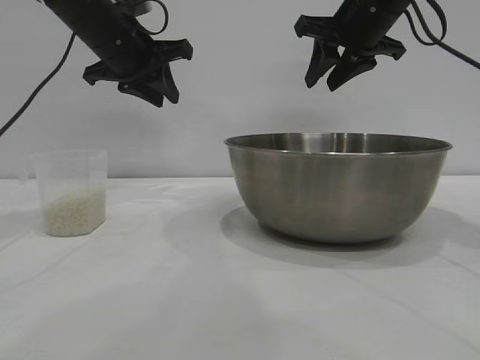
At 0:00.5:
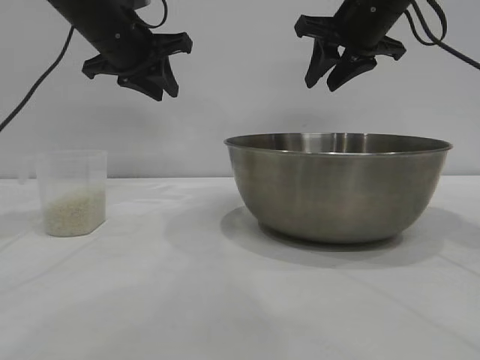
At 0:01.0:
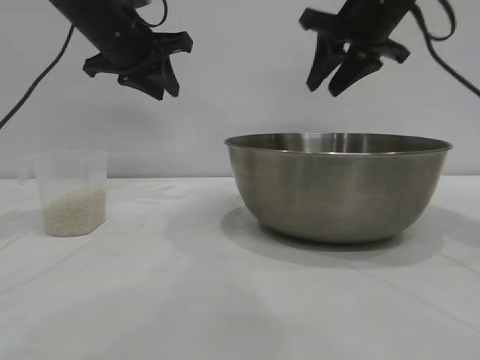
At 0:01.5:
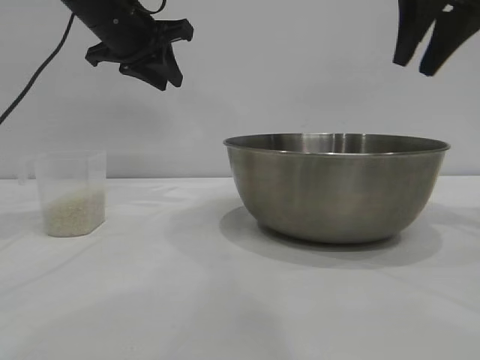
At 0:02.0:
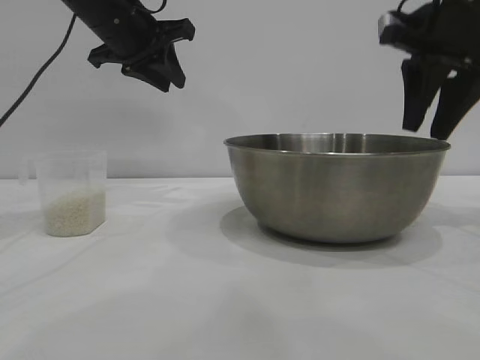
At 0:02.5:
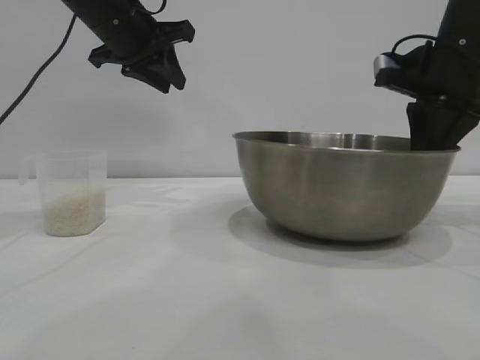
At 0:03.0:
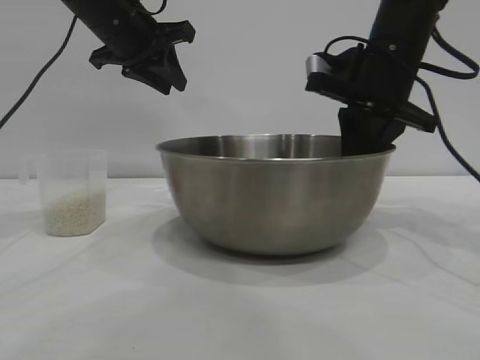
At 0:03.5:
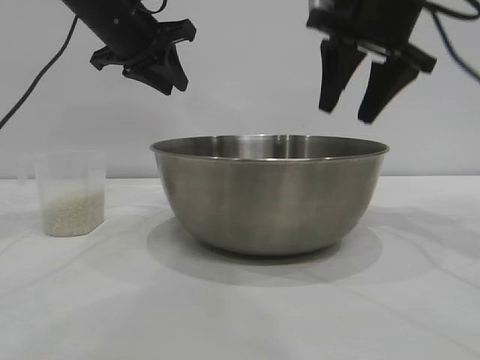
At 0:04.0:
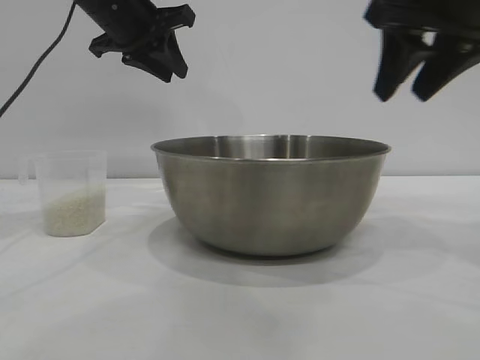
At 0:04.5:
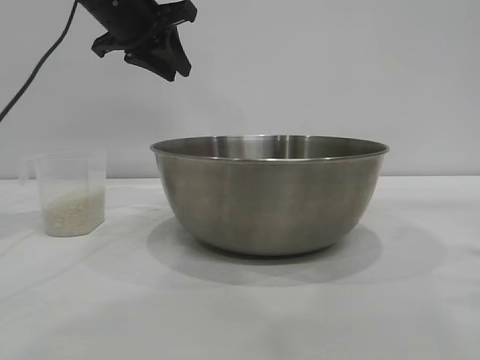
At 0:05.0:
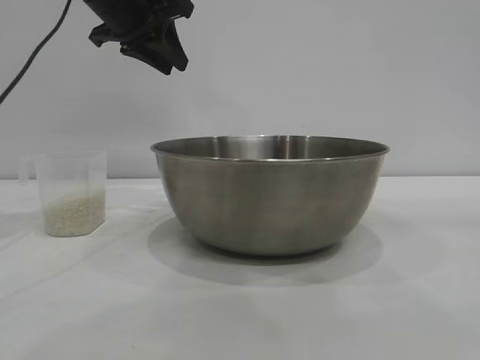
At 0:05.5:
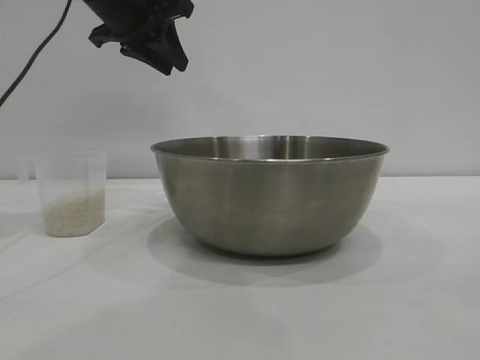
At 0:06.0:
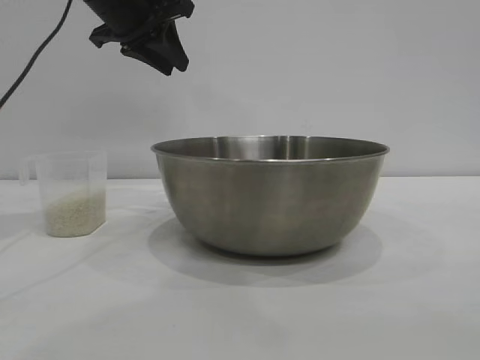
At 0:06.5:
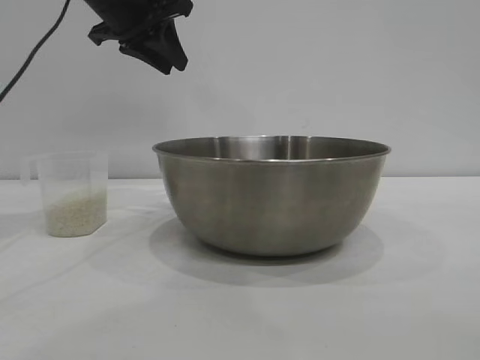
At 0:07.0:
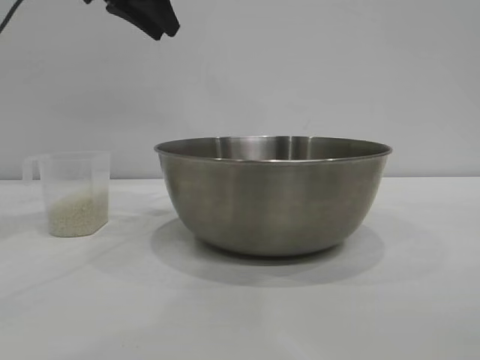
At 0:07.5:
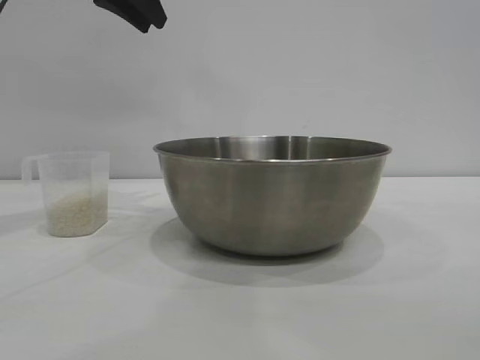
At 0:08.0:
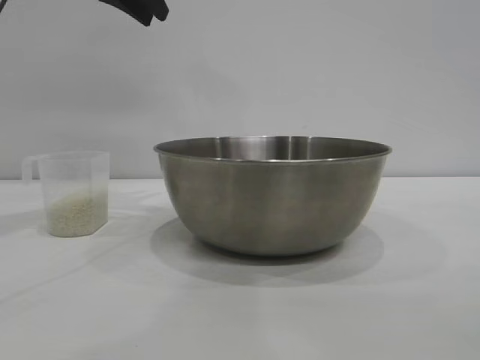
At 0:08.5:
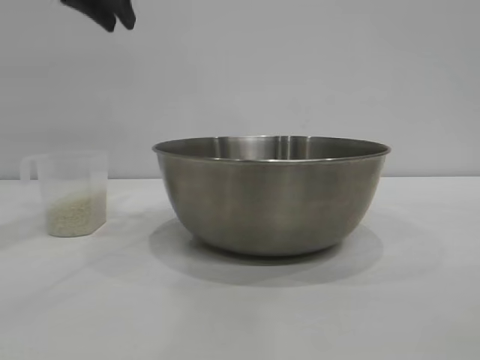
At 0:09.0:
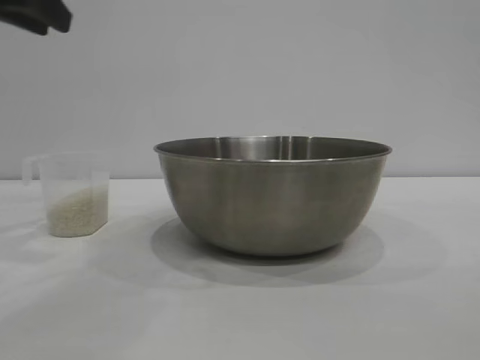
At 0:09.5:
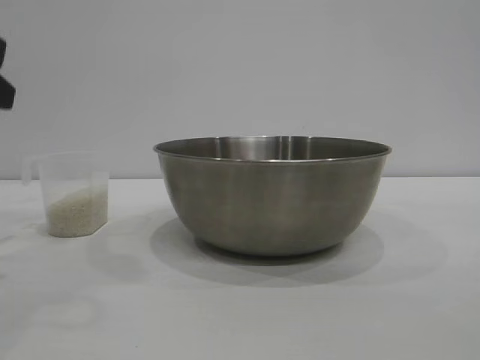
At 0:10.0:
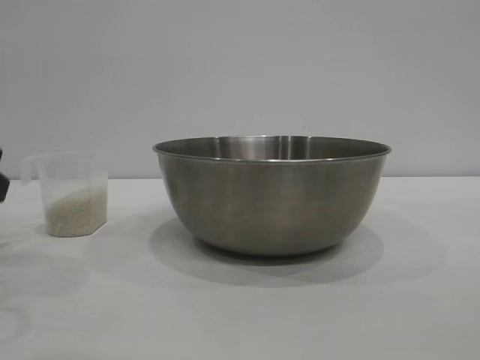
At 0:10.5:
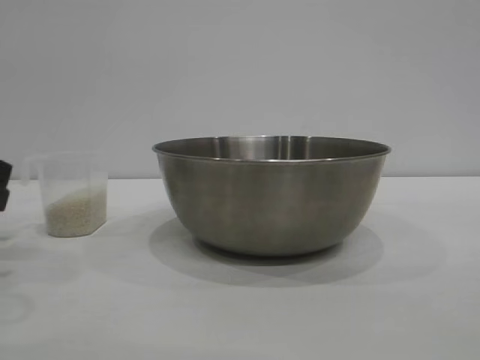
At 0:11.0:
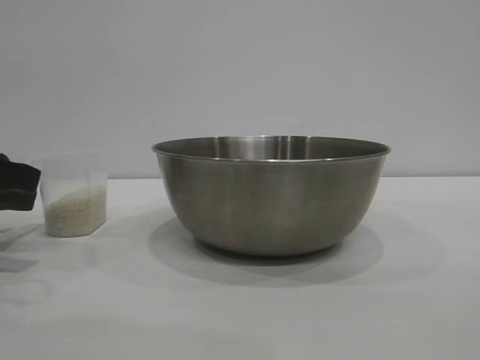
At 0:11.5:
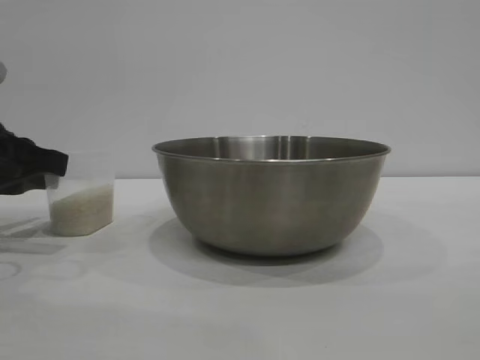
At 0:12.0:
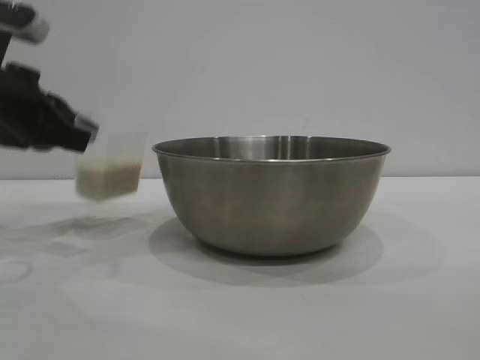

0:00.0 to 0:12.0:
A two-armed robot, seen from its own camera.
Task of the whole recording: the right gripper grasp the rice container and place it in the center of the table, the left gripper grasp the rice scoop and pour the rice into the rice container.
Step, 0:00.0 to 0:03.5: Move the bowl to the center of view with the right gripper.
Step, 0:04.0 to 0:11.5: Pick up the cup with rice in it with the left gripper.

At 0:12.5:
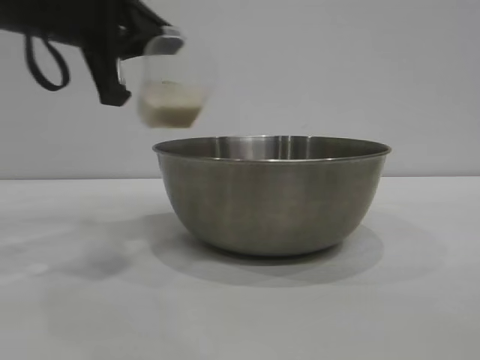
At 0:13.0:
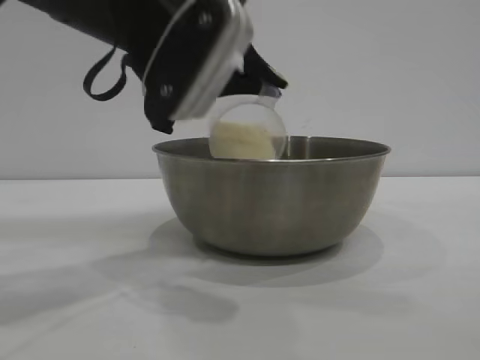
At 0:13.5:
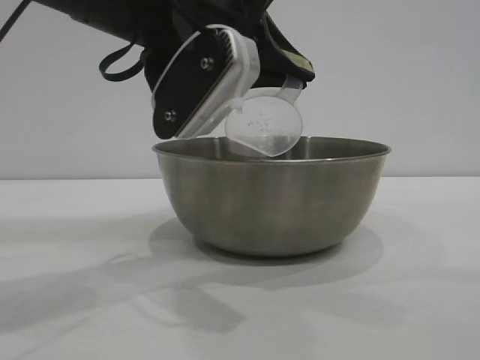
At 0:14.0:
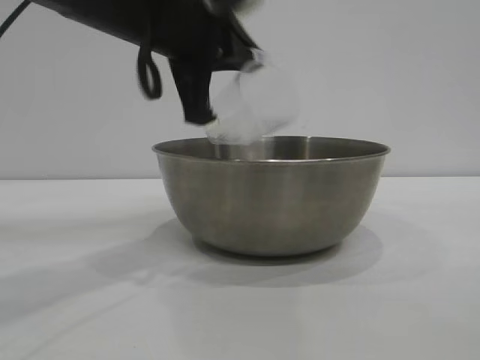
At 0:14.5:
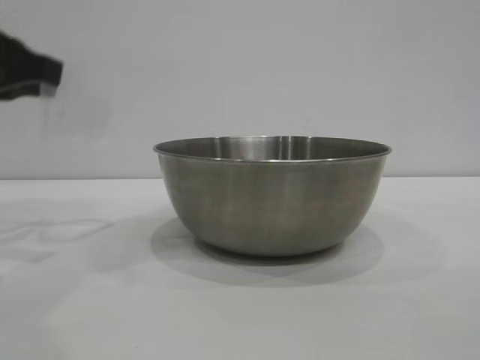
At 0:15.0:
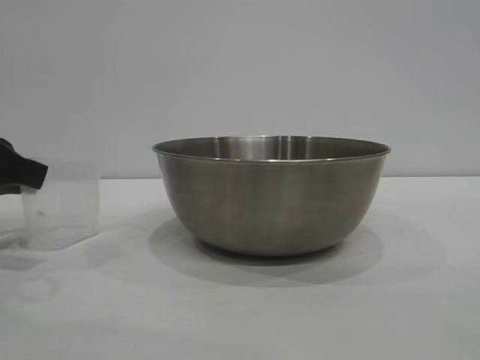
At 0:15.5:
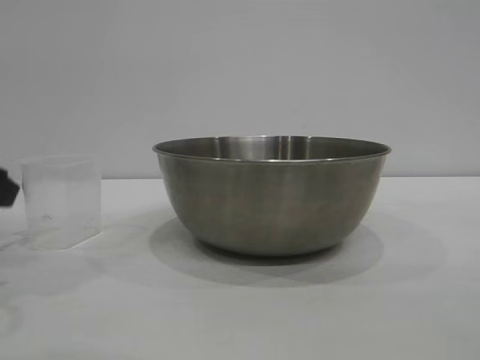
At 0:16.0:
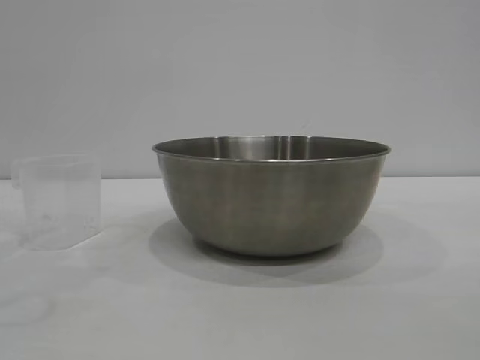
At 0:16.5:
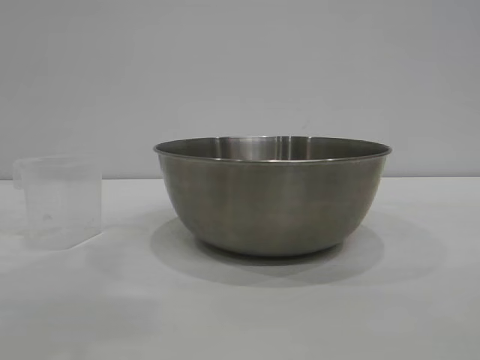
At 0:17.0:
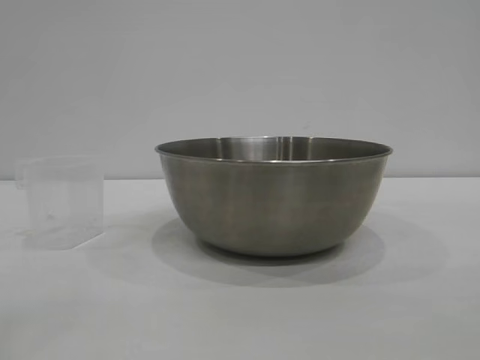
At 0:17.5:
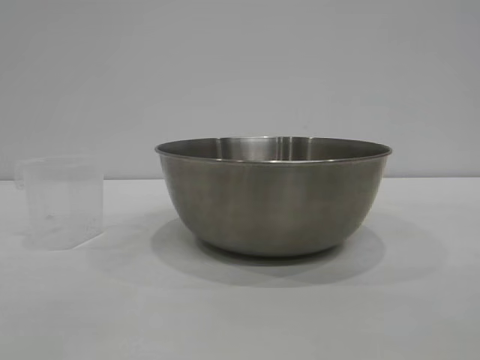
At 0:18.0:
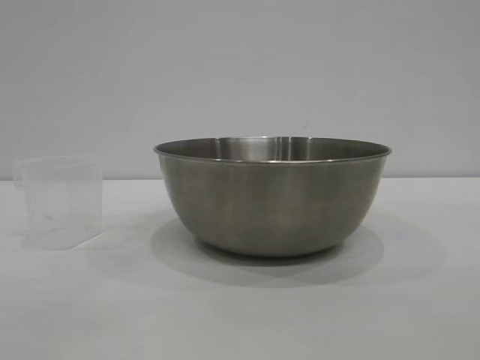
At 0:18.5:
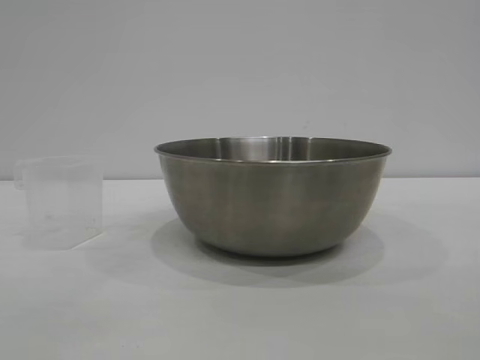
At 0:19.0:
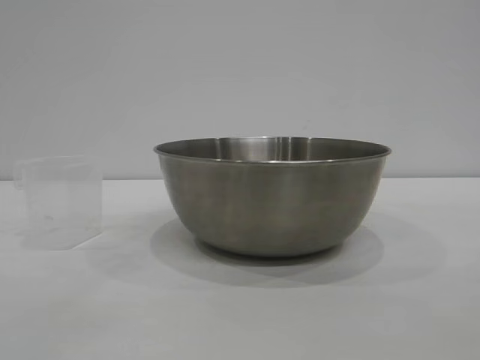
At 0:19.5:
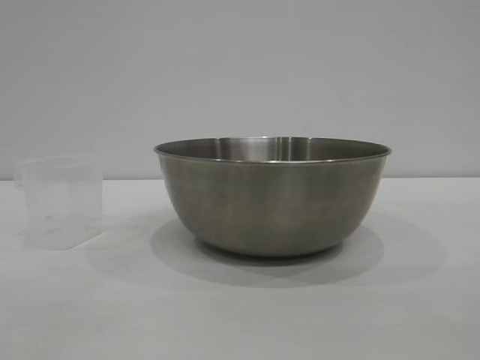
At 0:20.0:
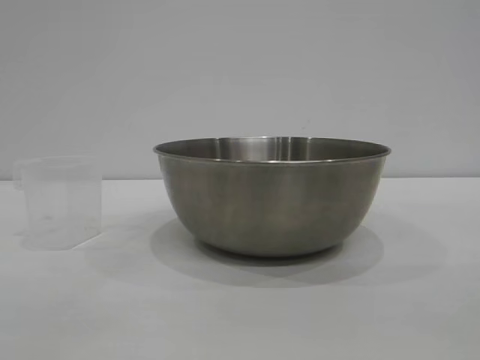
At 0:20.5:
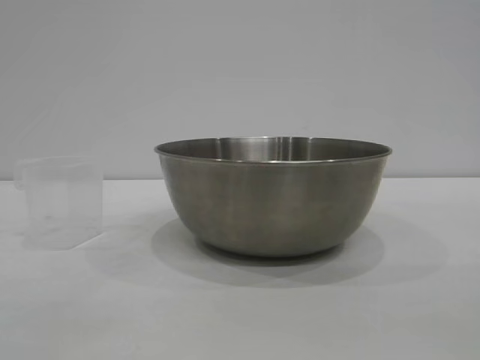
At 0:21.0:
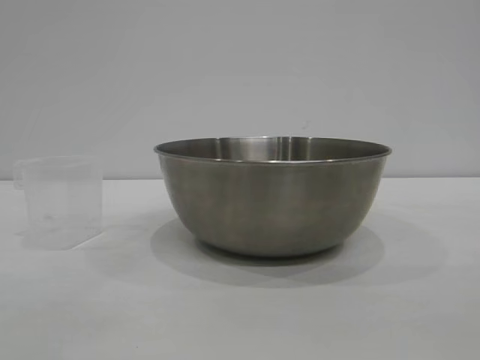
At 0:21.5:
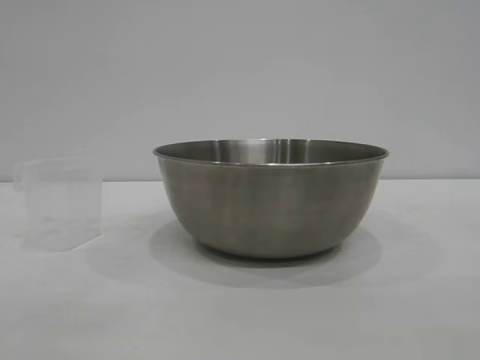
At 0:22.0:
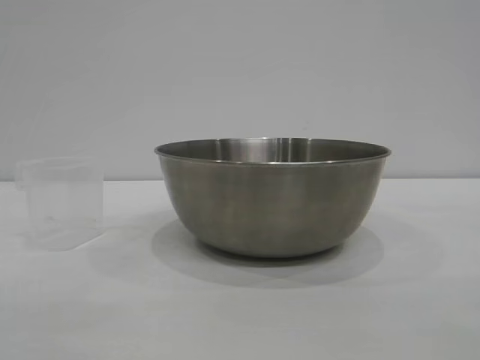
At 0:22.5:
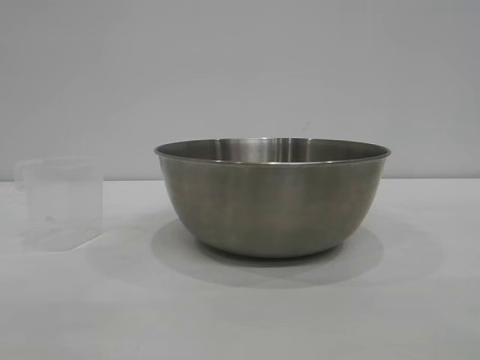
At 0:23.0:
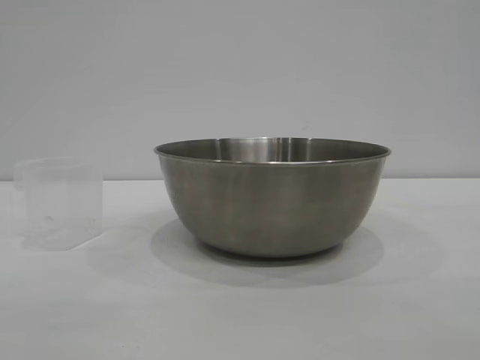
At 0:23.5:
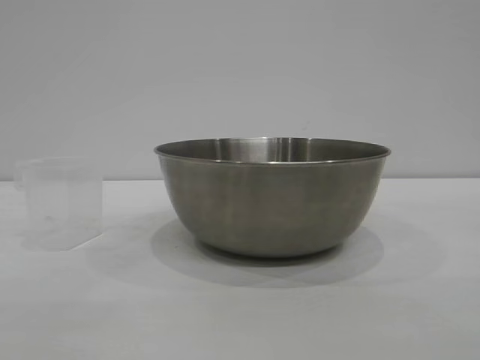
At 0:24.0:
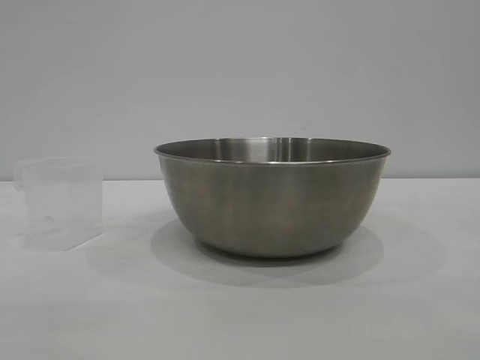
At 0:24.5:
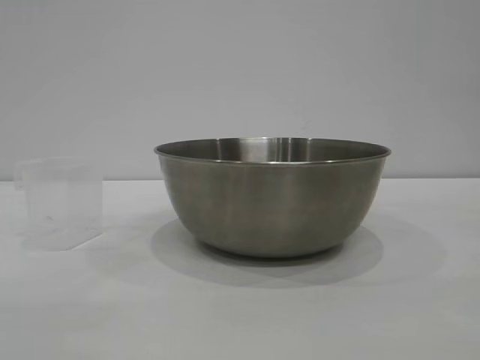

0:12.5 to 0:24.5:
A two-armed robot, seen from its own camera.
Task of the whole recording: the right gripper grasp the rice container and place it in the center of the table, the left gripper grasp the rice scoop and pour the rice into the rice container.
Step, 0:12.5 to 0:13.5: Pour the rice from the cup into the bowl with the left gripper.
Step, 0:14.0 to 0:15.5: Place the cup on the table with the left gripper.
